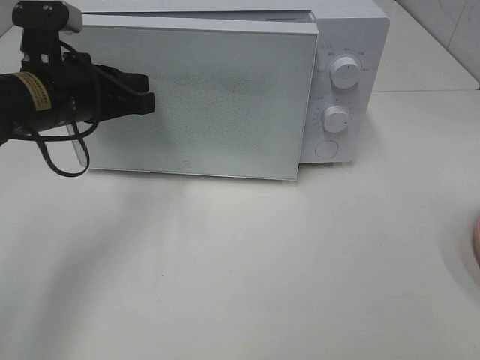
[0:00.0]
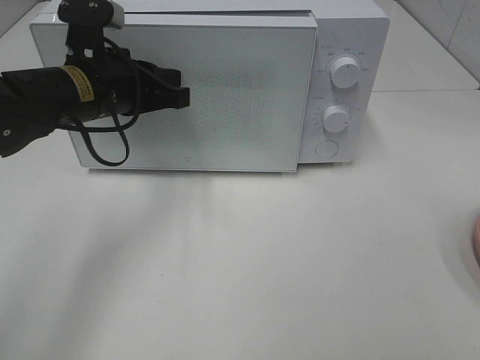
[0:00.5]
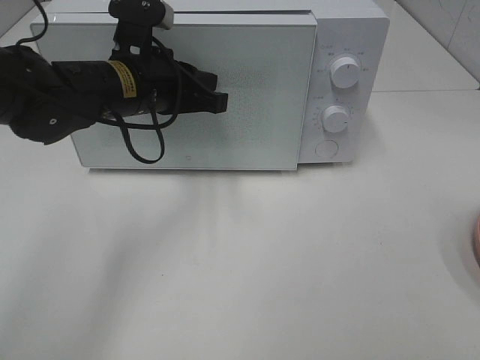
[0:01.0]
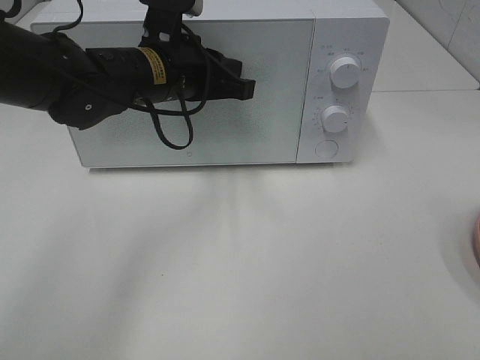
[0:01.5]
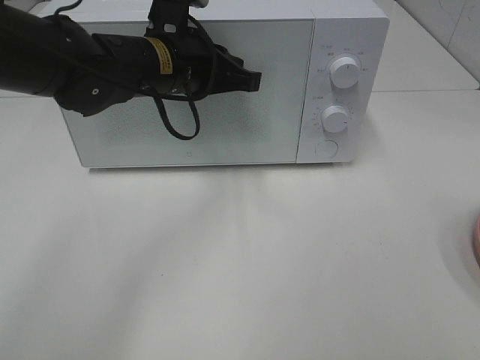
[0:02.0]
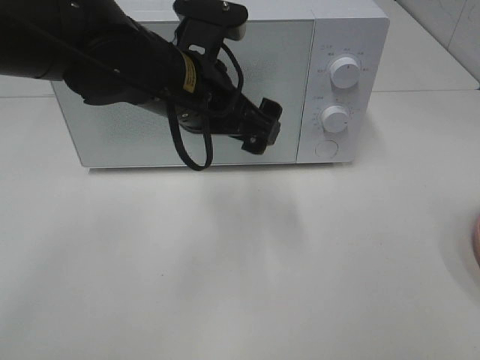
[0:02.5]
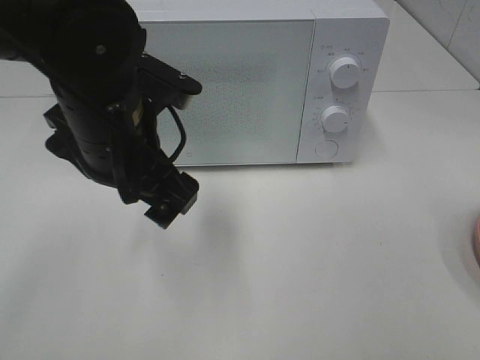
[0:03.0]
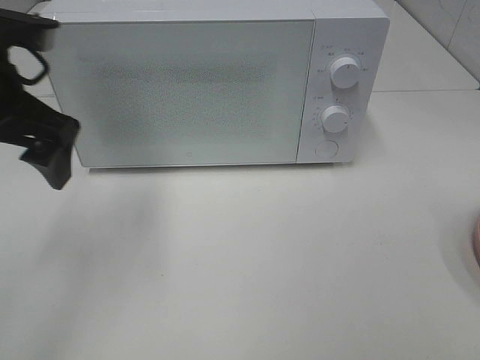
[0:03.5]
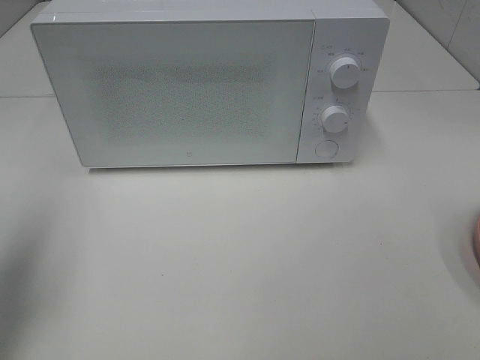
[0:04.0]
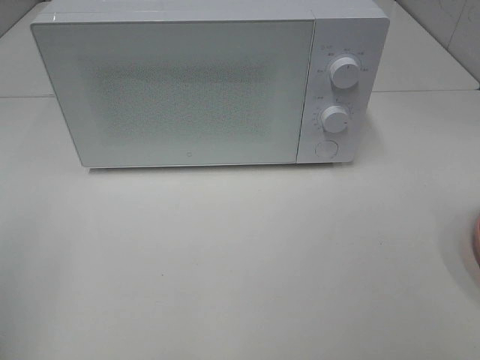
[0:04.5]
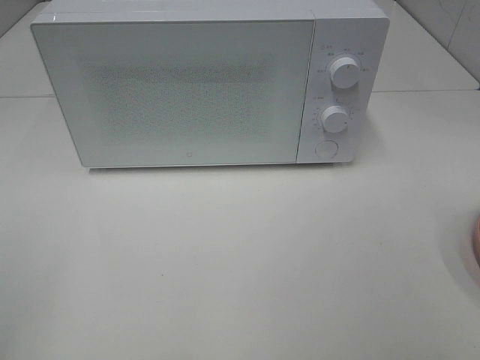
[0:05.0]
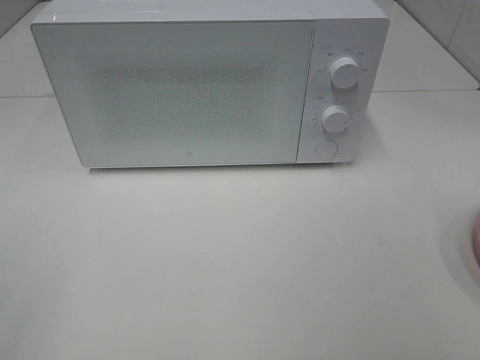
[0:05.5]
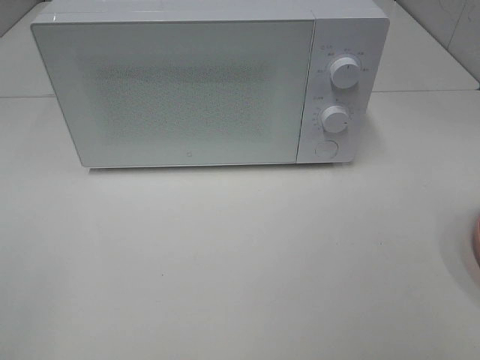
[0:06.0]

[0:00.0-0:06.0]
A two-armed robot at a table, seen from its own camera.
Task of the whole recording: Heat the burger.
0:00.0 to 0:02.0: The left gripper travels to the right by roughly 10 cm.
0:02.0 to 0:04.0: The left gripper heads to the left and backward, covering roughly 30 cm, and opens up.
0:04.0 to 0:06.0: The left gripper shifts approximately 20 cm backward.

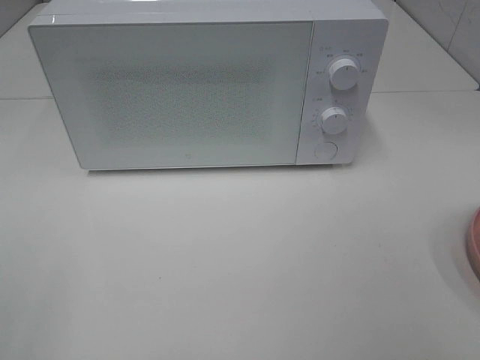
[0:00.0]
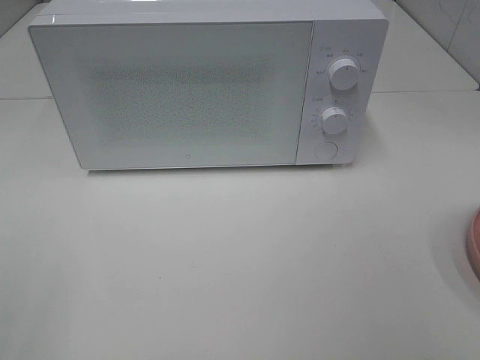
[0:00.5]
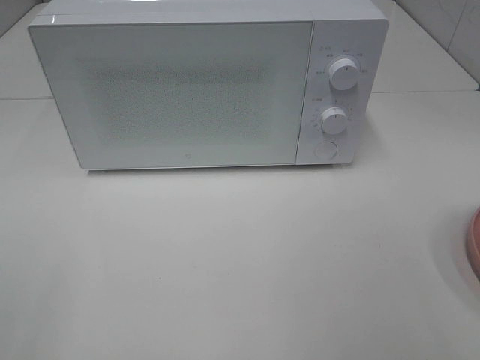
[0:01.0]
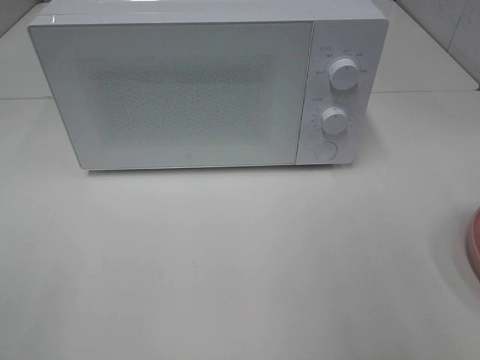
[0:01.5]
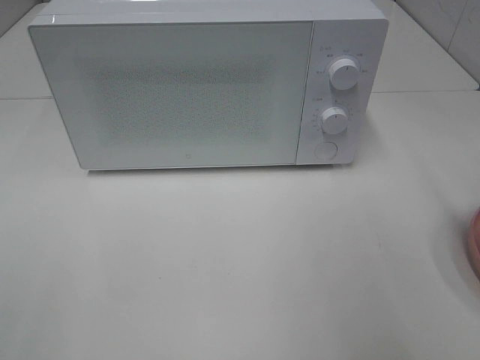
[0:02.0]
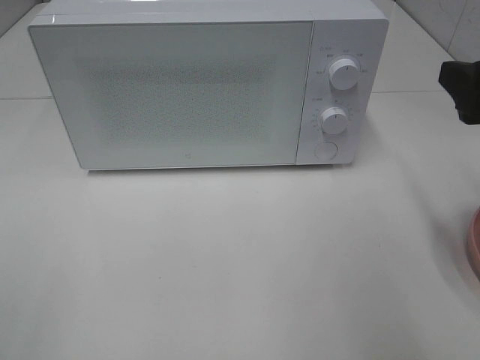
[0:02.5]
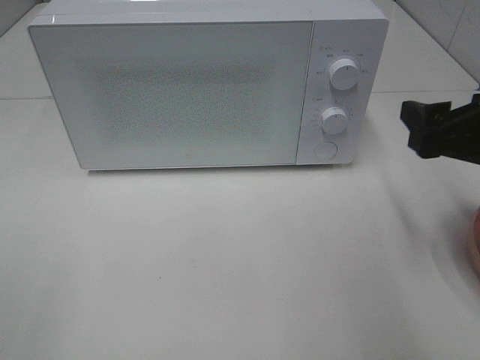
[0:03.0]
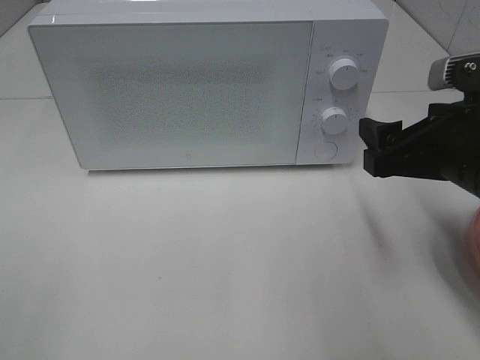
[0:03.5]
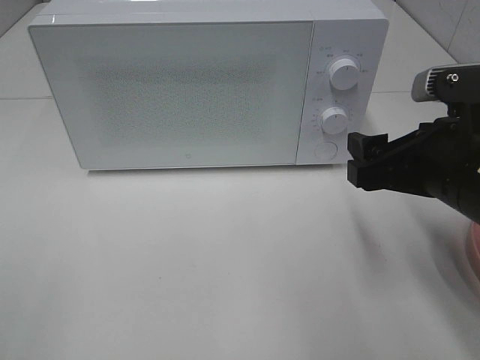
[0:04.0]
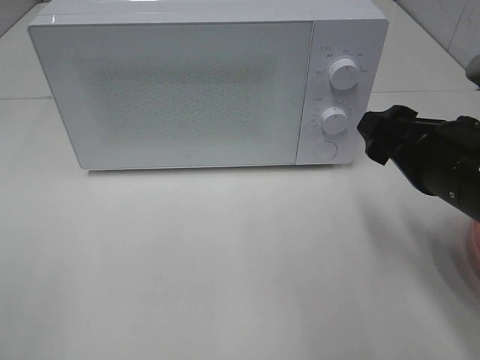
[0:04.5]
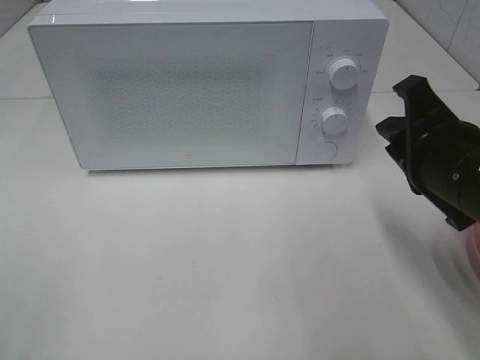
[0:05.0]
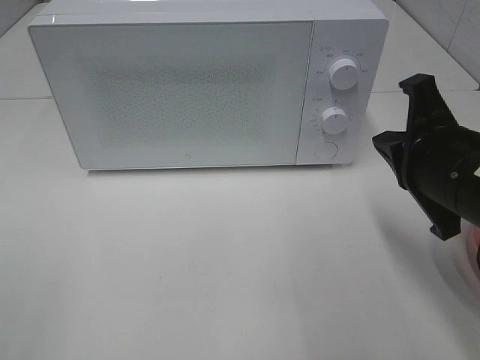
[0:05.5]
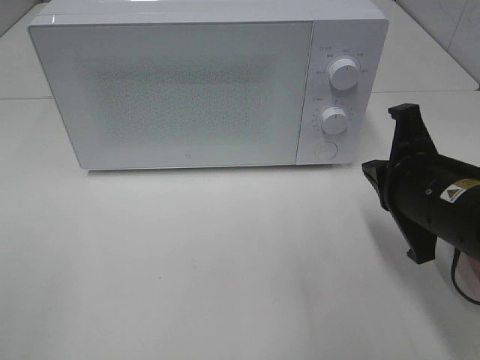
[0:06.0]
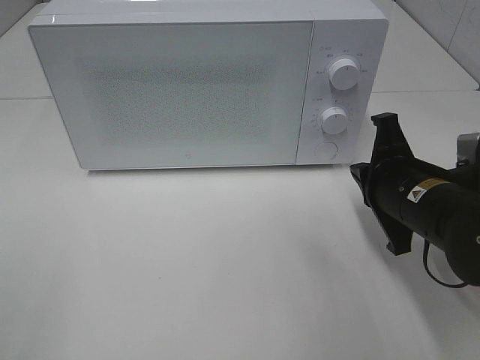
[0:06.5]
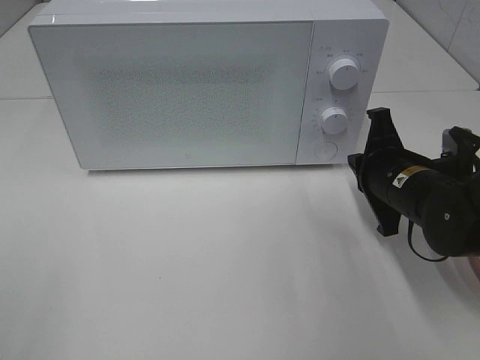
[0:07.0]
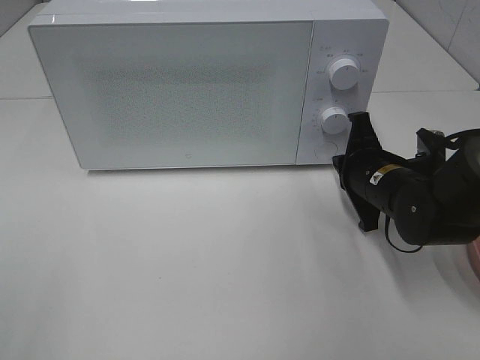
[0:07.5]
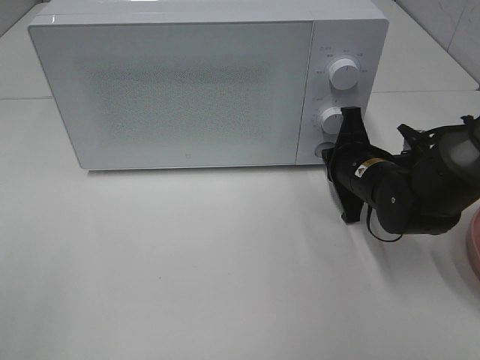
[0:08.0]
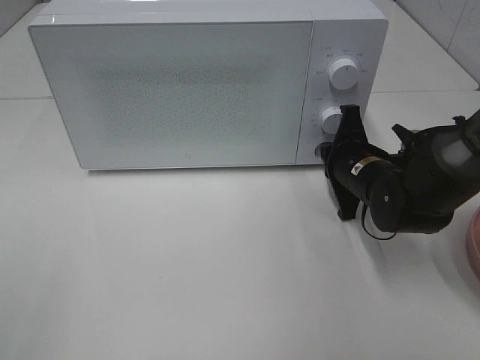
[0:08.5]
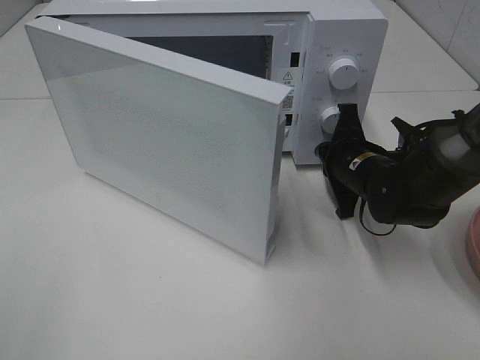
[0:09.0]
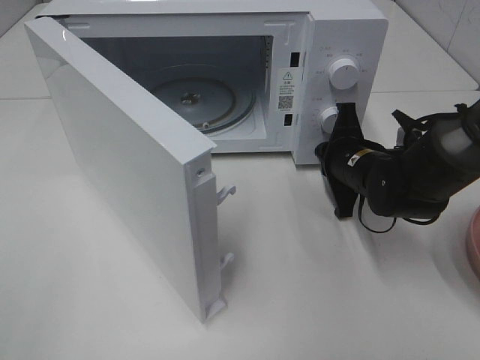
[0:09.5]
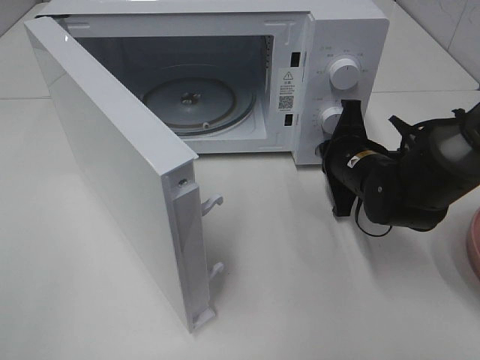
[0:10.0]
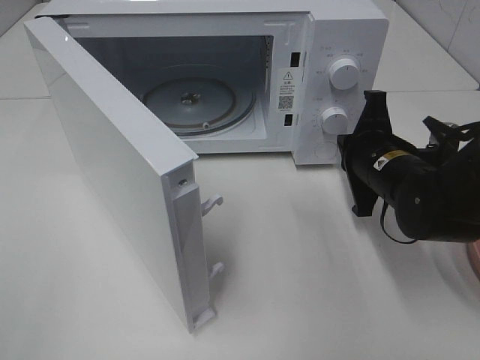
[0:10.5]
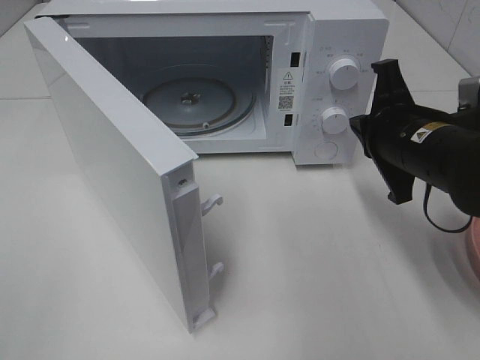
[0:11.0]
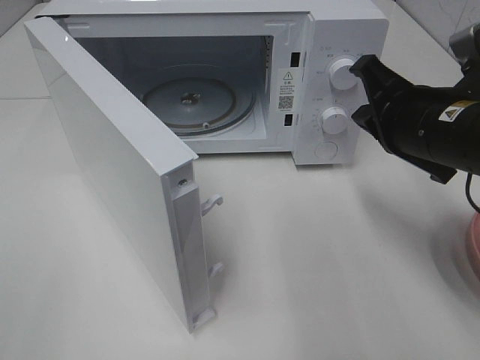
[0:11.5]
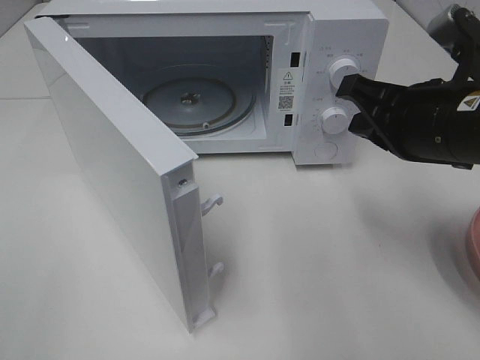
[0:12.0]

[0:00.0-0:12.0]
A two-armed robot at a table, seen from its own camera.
Task of the whole recording: Heat the burger.
Step, 0:00.0 to 0:10.0: Right hand: press the switch.
0:02.0 to 0:04.0: The right gripper shifts some 15 cm downward and to the left.
0:04.0 to 0:06.0: The right gripper closes up.
0:06.0 to 0:08.0: The right gripper travels forward and downward by some 15 cm.
0:10.0 to 0:12.0: The right gripper travels upward and backward by roughly 15 cm.

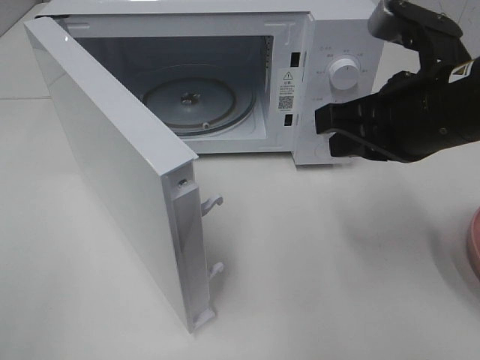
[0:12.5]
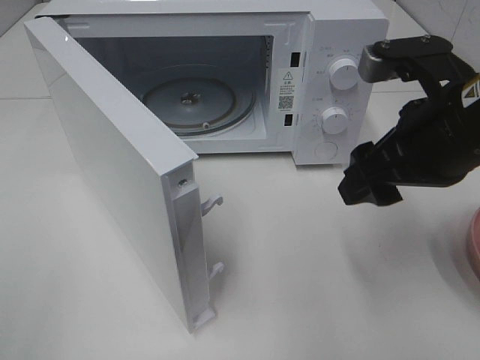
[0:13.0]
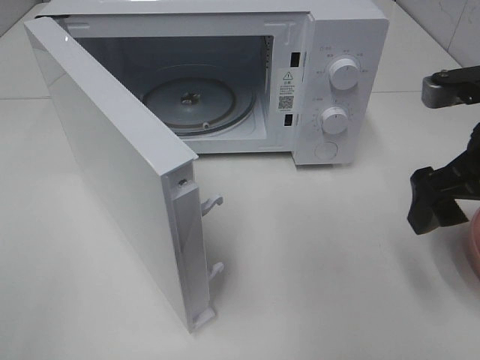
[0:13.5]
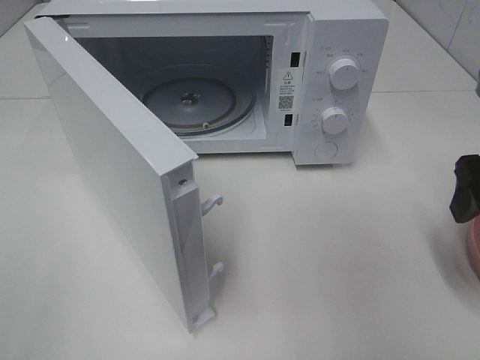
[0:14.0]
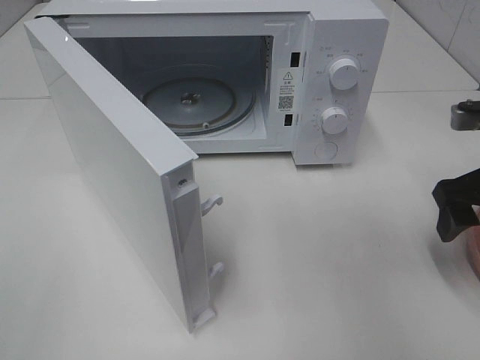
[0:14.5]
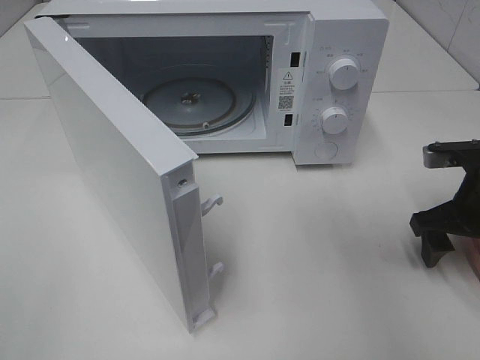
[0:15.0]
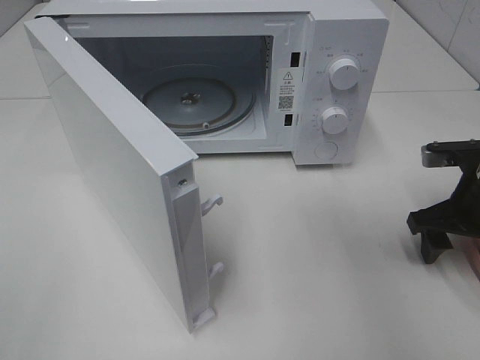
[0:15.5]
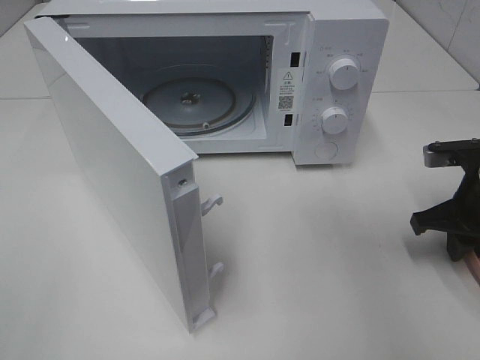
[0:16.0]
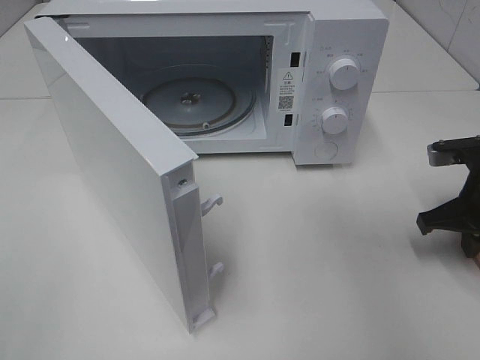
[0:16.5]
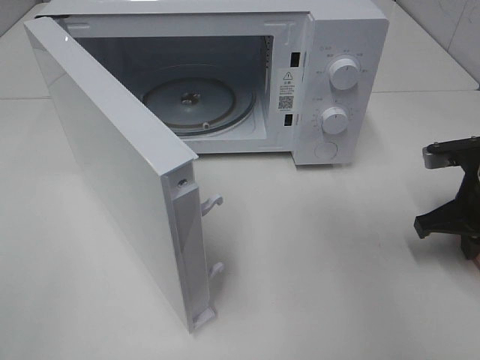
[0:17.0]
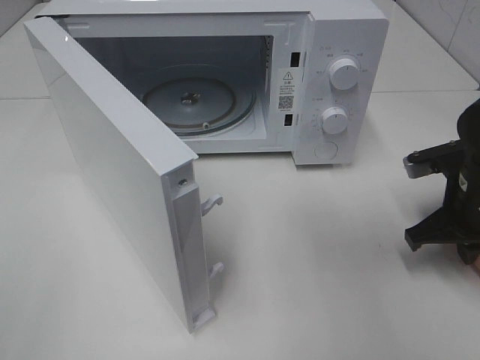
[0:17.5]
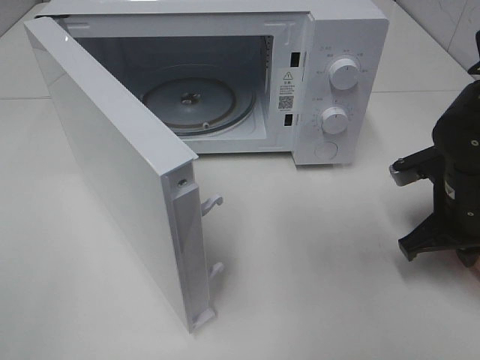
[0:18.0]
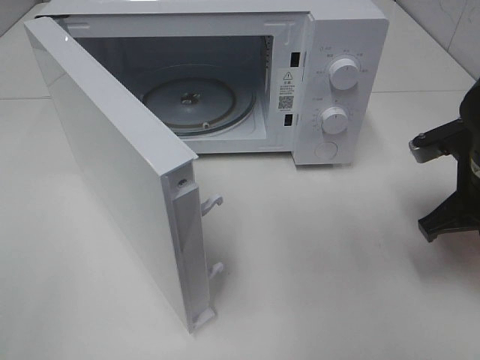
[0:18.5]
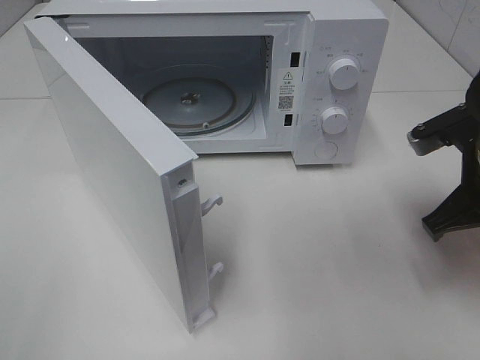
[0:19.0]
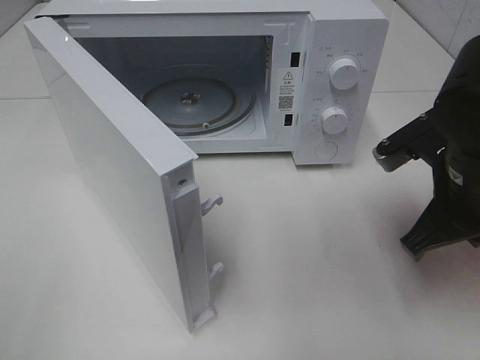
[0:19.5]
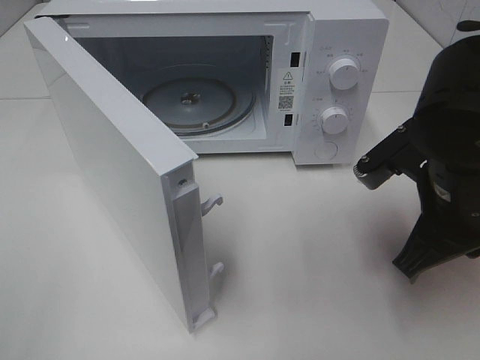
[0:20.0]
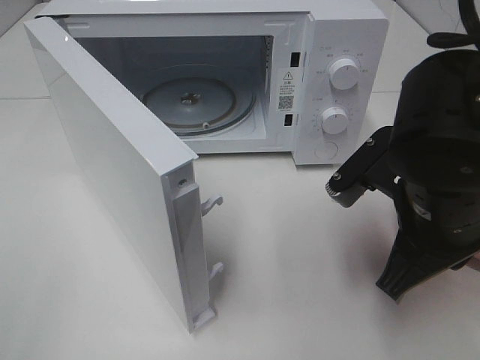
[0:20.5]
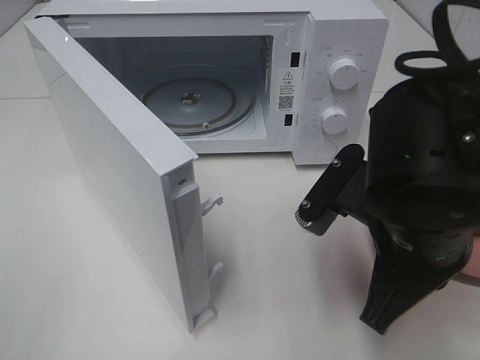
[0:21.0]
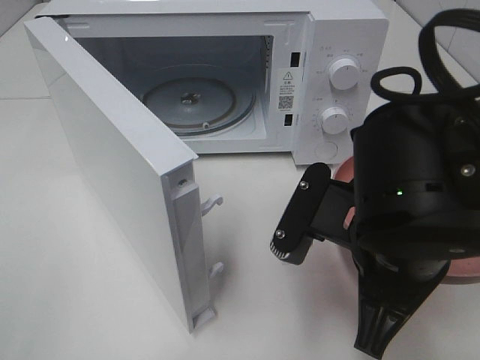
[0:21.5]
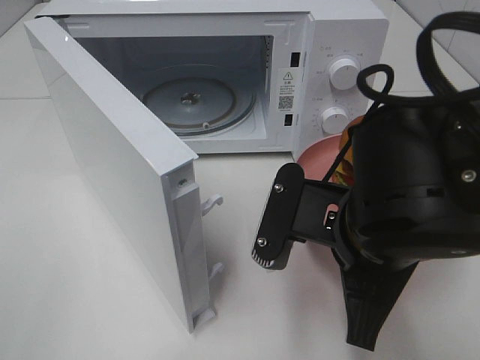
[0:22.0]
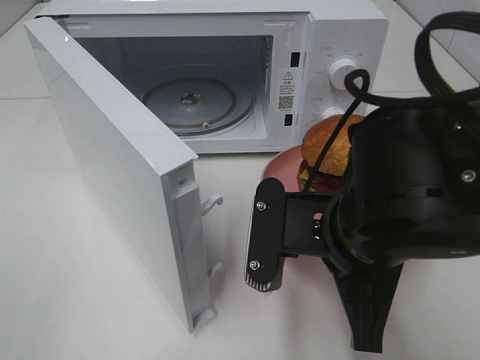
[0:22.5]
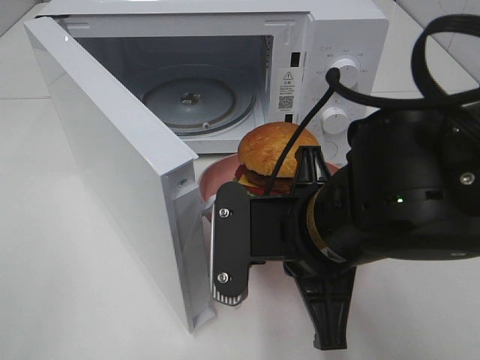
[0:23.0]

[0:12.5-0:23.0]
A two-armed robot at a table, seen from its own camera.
Task of the whole recording: Heat the burger.
Step, 0:12.5 to 0:16.0: Right hand: grab the plate with the hamburger.
0:12.5 to 0:14.5: The right gripper goes some 15 cm to the right and downward, and opens.
0:14.5 to 0:16.5: The right gripper goes roughly 5 cm downward, and closes.
0:16.5 to 0:19.0: The right gripper travels upward and to the left by some 10 cm.
0:19.0 to 0:21.0: The right gripper travels to the left and backward by roughly 15 cm.
0:21.0 to 0:23.0: The right gripper travels to the left by some 5 cm.
